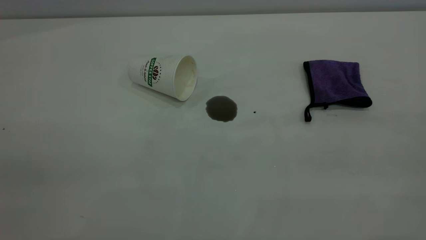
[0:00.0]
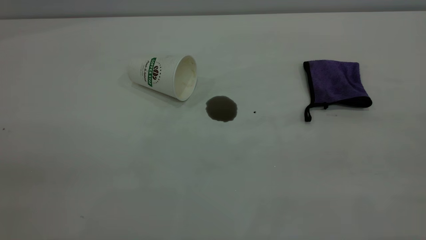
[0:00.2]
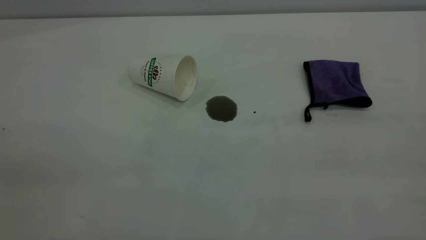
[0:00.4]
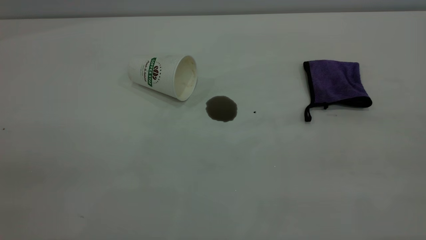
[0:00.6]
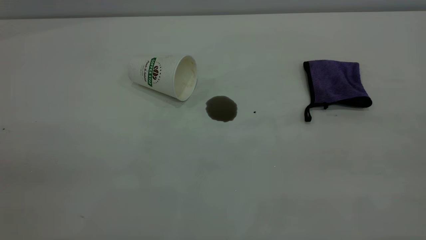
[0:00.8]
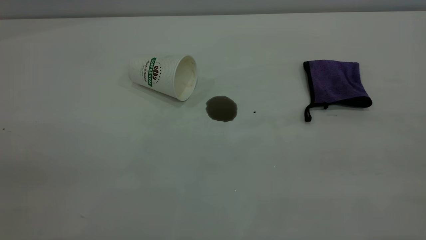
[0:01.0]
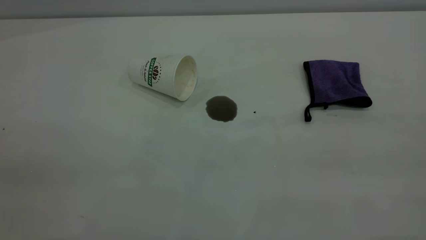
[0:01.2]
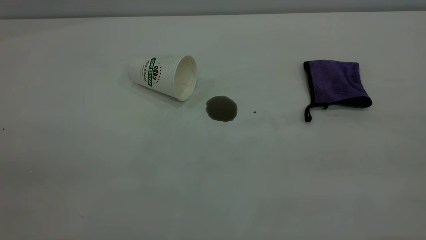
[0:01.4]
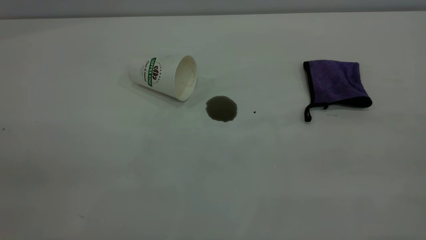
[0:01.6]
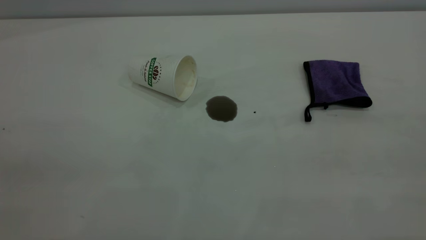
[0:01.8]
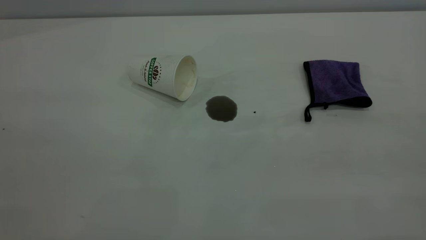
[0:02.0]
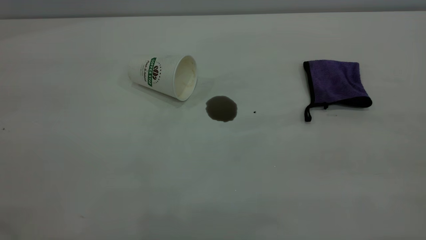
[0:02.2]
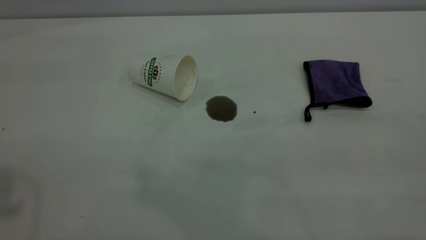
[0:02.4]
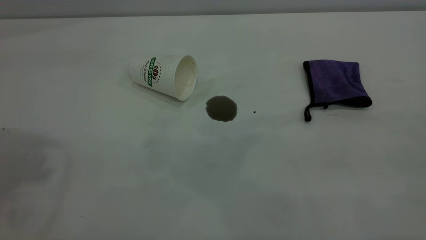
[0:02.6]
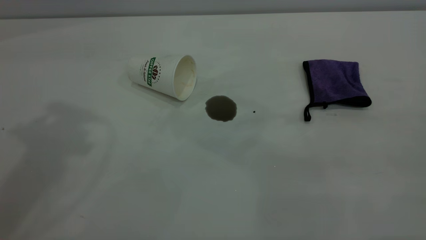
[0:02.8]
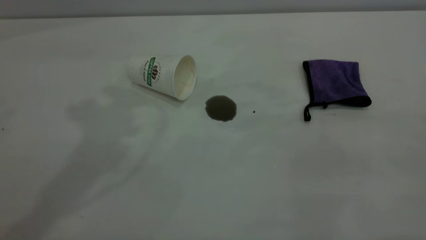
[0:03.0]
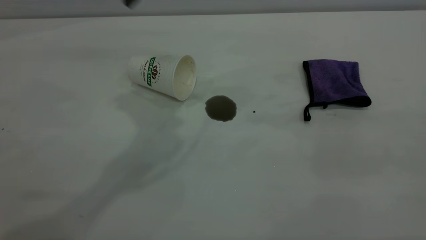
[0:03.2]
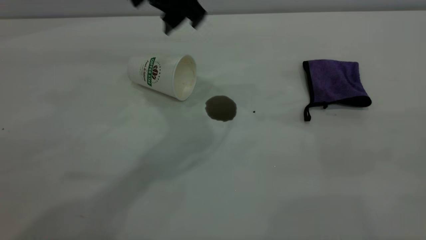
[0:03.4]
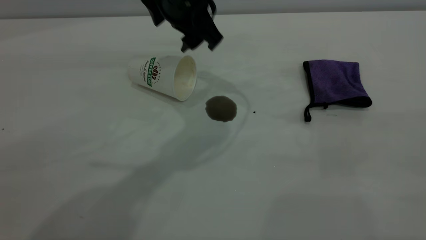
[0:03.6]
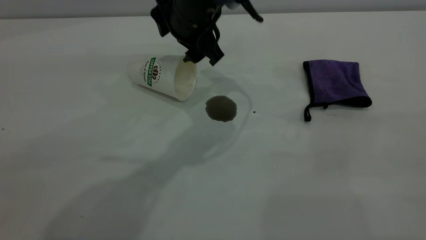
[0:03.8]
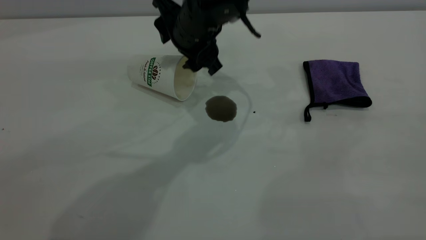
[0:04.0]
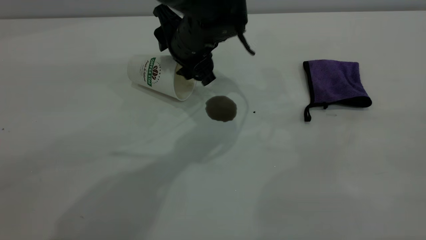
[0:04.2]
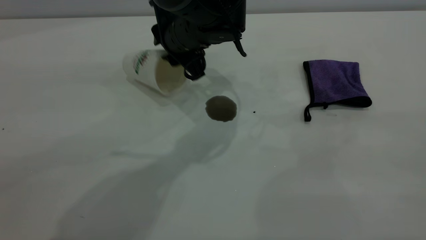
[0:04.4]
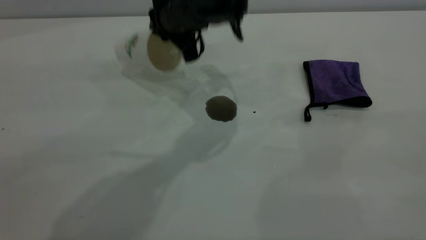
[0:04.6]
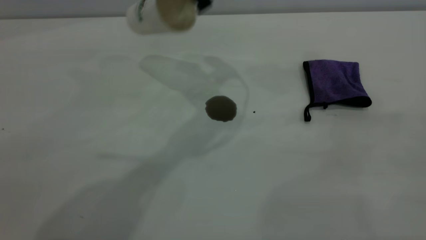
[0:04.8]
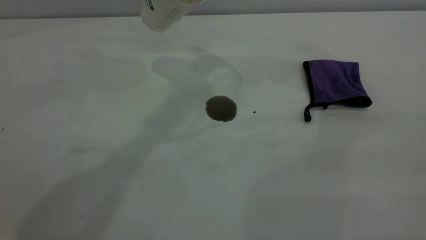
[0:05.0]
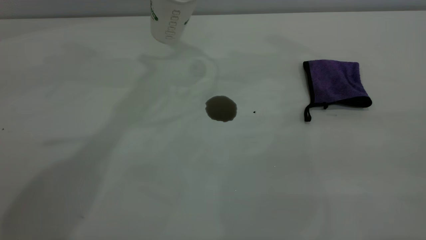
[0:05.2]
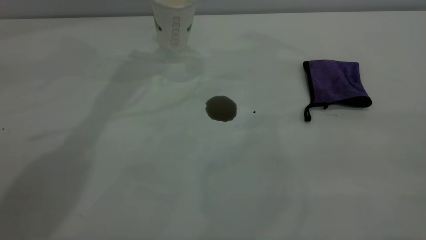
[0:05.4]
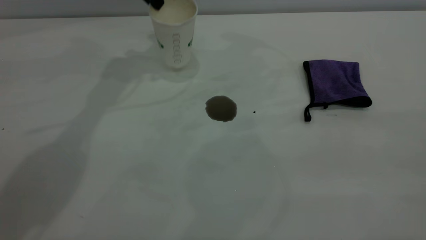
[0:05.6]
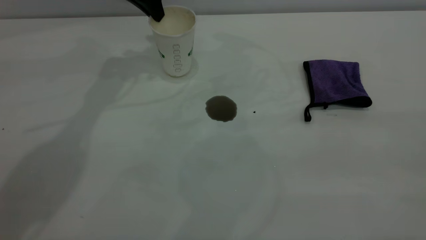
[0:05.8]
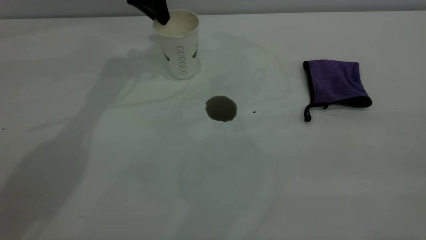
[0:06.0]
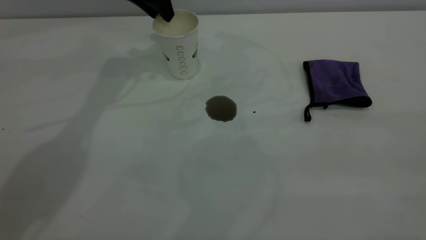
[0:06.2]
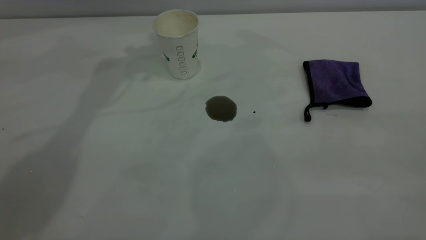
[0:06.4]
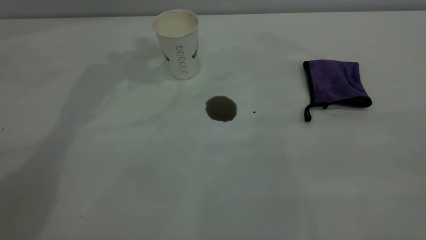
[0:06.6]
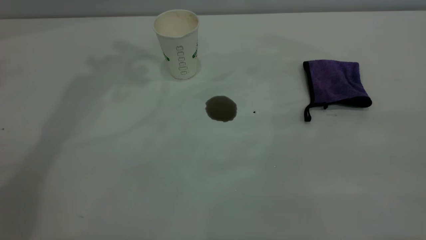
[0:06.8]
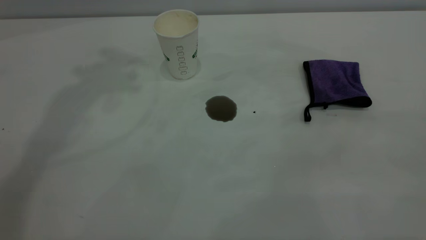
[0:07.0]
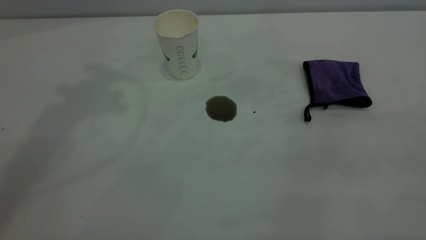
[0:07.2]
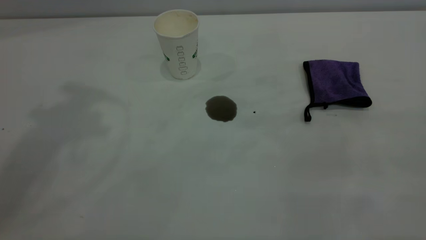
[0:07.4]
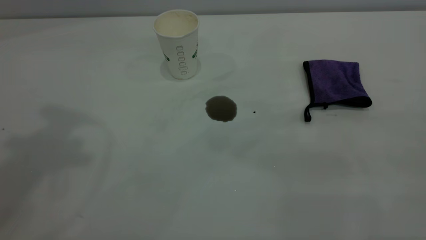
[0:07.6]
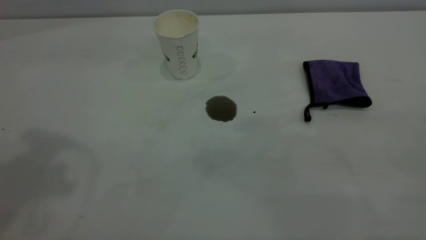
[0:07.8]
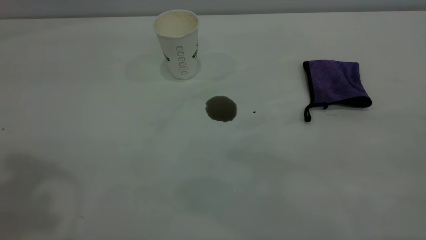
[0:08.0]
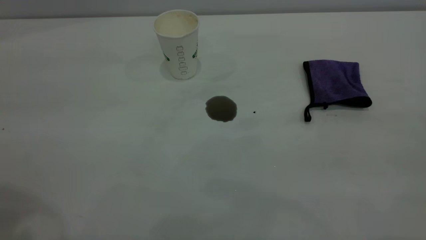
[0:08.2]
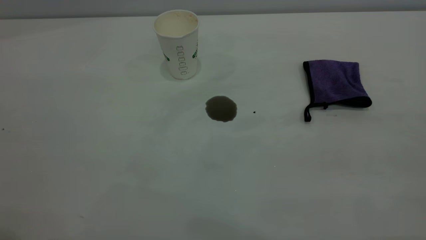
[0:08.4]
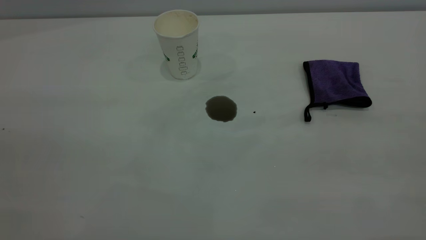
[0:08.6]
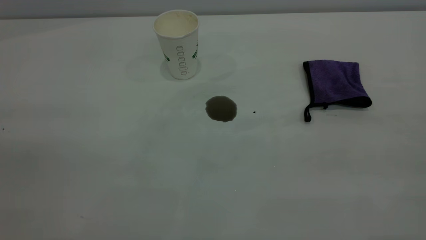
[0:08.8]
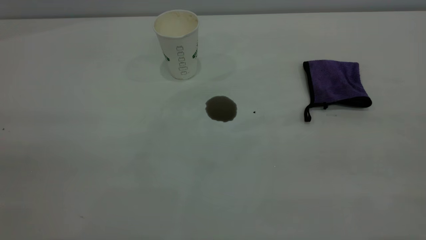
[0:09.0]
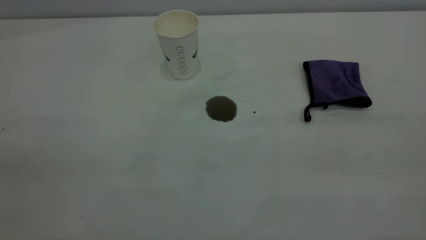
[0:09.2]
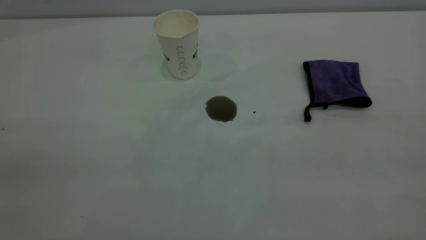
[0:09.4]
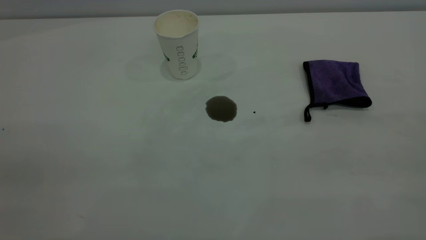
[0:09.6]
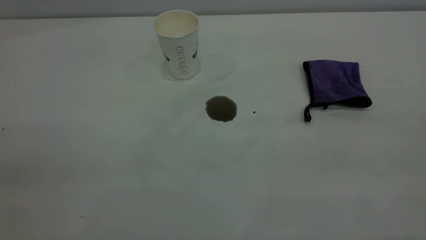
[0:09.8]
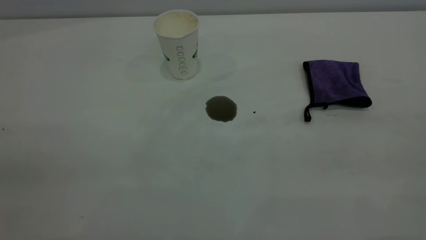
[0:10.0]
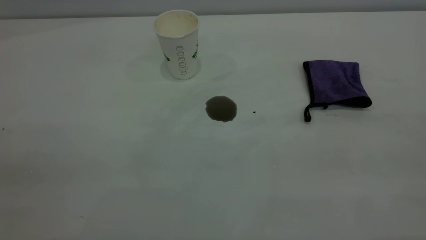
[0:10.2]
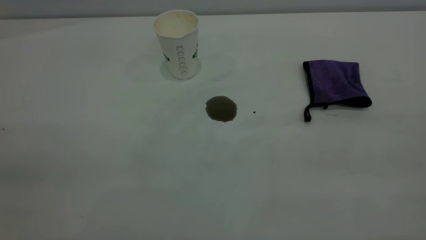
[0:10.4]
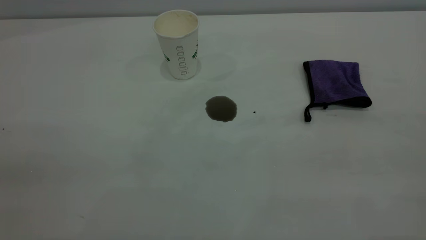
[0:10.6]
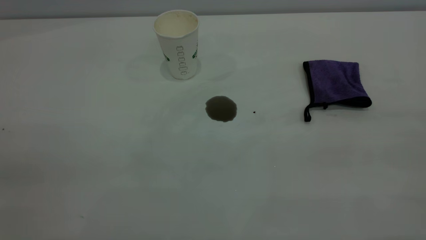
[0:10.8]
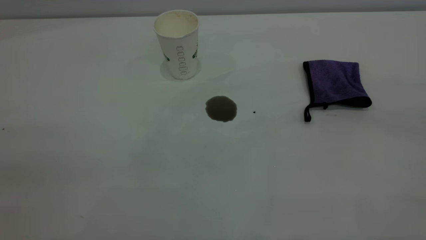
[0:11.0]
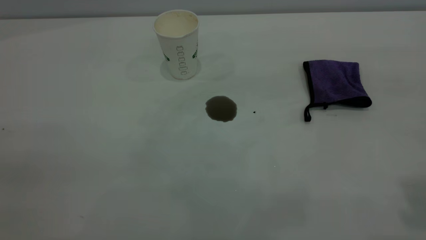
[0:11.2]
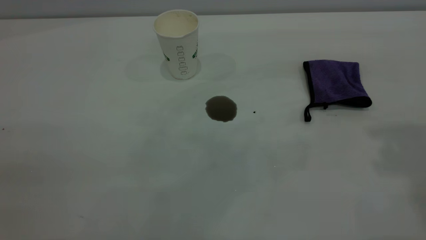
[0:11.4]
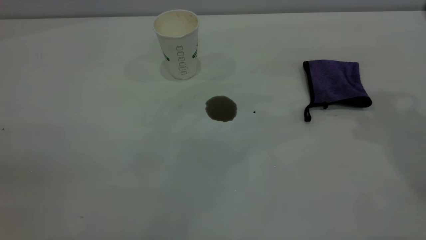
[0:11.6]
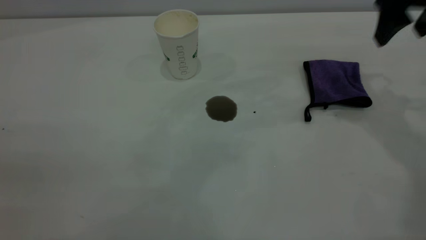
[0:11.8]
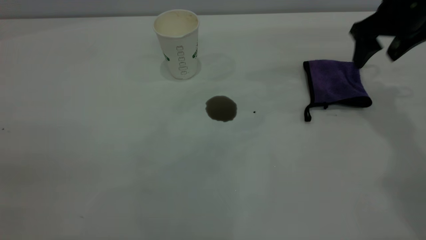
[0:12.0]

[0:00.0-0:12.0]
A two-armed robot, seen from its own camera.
Task of the whole recording: the left gripper pick up the fallen cup and place it upright, the right gripper grasp the purple rag and wipe the coffee stain on the table, the right gripper put the purple rag back in its original position.
Step, 0:00.0 to 0:06.2: Stand the paper cup upright.
0:00.0 to 0:01.6: Both grippers stay put.
0:03.0 to 0:04.4: The left gripper shifts some 25 cm downward and to the right, and closes up.
0:04.4 to 0:06.0: The left gripper heads to the left, forward and upward, covering approximately 20 cm.
0:06.0 to 0:07.6: The left gripper shifts approximately 40 cm upward and backward, and opens up.
0:10.4 to 0:12.0: The right gripper goes roughly 50 cm forward and downward, and opens up.

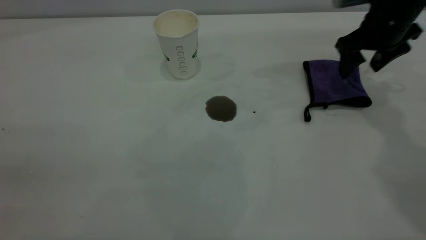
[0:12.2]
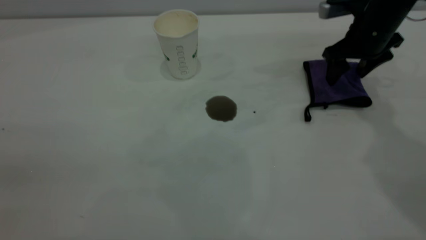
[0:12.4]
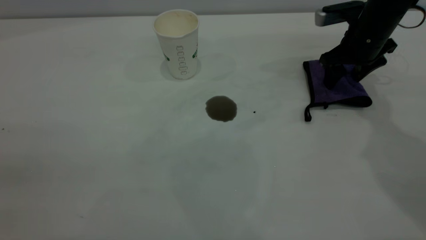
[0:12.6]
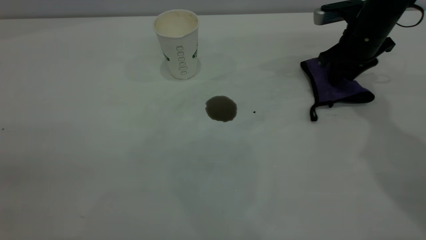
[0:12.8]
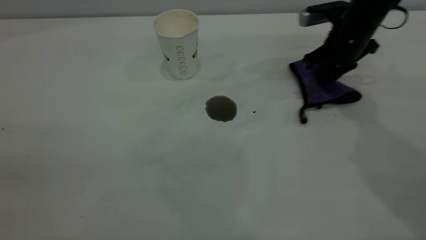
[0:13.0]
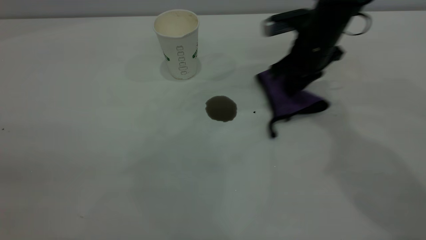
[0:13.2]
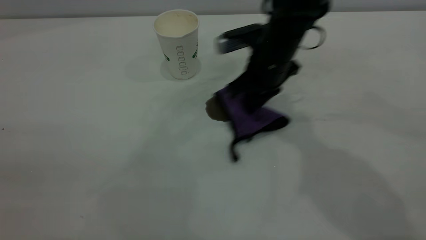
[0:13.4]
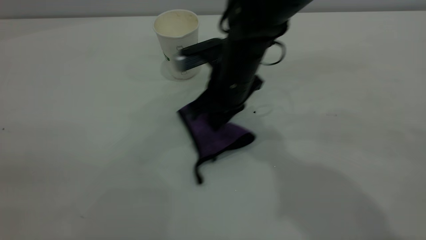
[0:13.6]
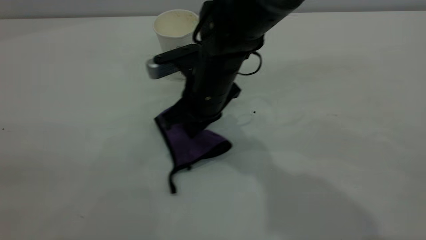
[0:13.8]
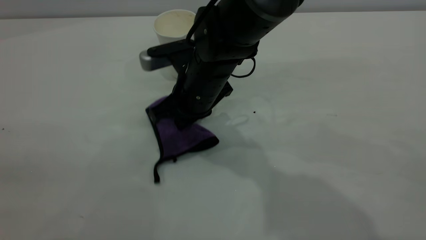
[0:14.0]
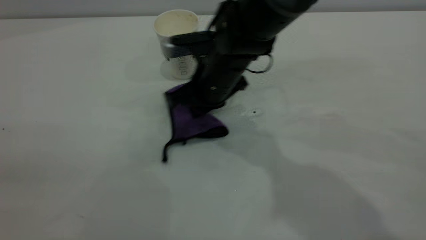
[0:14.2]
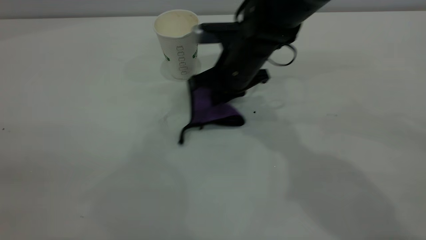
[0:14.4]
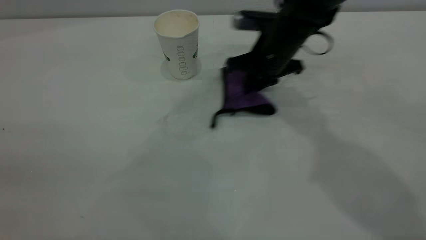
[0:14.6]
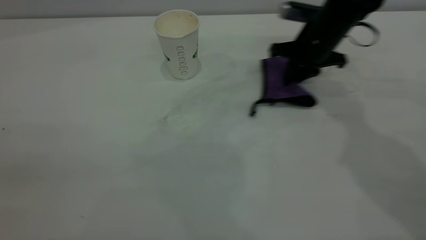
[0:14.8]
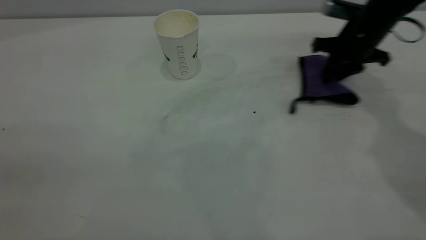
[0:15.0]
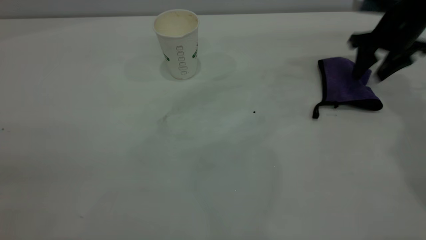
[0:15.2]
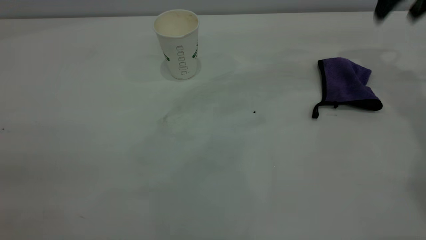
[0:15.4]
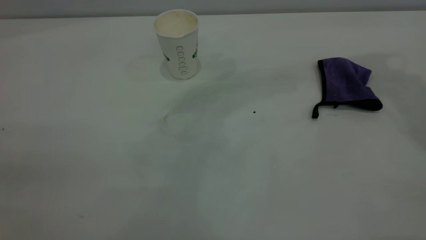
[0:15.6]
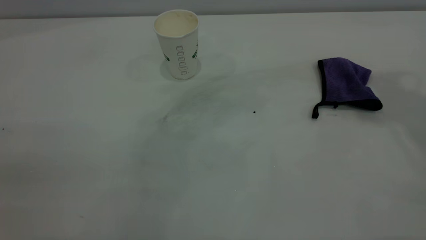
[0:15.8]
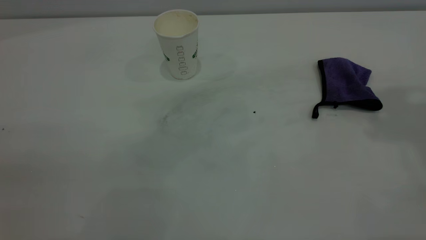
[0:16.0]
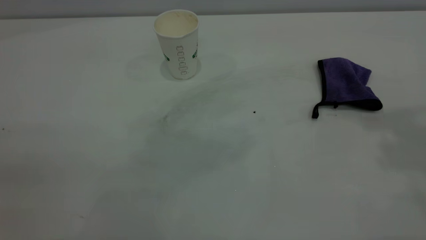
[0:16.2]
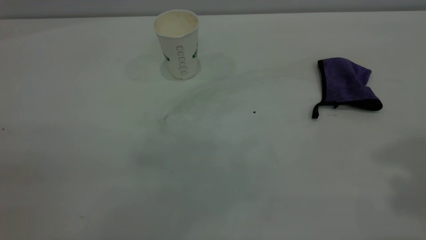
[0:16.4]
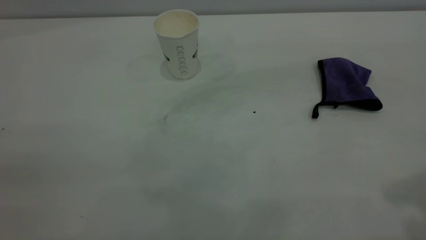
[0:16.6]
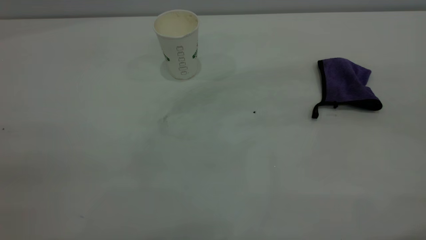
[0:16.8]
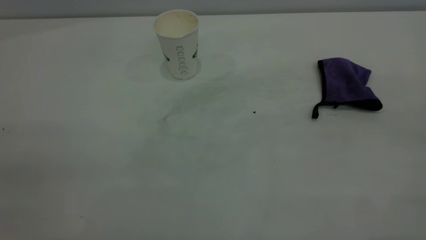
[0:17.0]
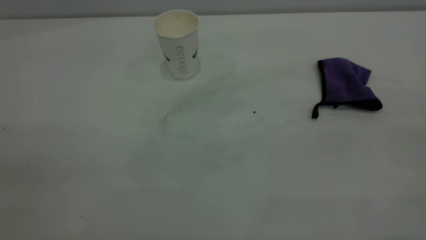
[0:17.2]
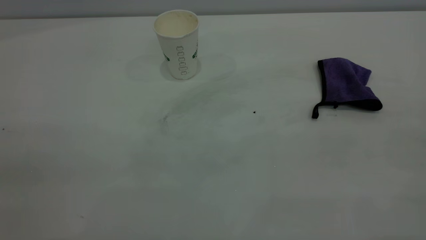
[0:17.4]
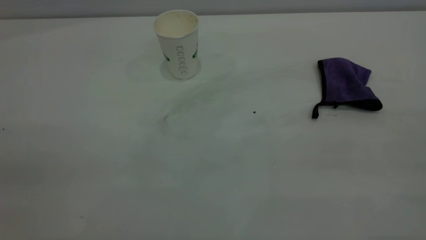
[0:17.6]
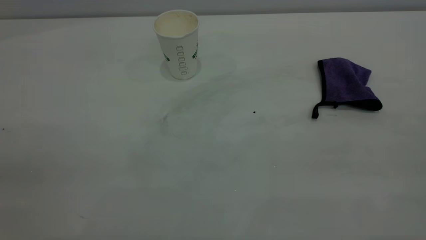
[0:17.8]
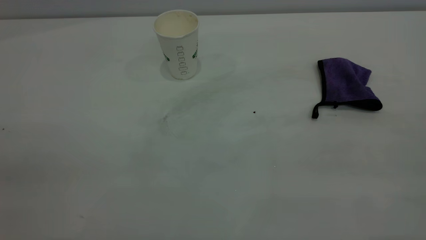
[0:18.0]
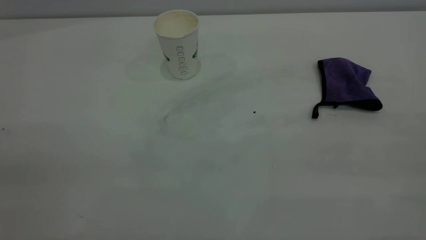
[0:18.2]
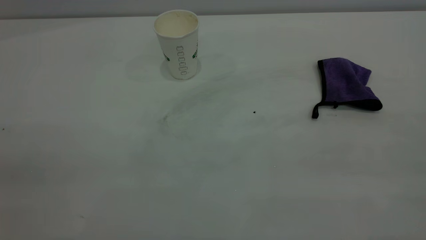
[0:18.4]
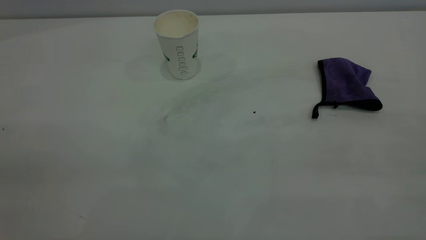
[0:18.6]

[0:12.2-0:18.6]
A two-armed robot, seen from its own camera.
Task of the whole recording: the left gripper pick up the fallen cup and place it upright, the right gripper grasp the purple rag and wipe the coffee stain on the table, the right gripper put the purple rag back in its original position.
Step, 0:12.2 to 0:15.2: Wipe the stains off the table with a rag.
0:12.2 to 0:13.8: The right gripper moves to the left, approximately 30 cm, and closes up.
0:13.8 to 0:15.4: The right gripper shifts about 40 cm to the right and upward, and opens its fingers.
0:15.4 to 0:17.0: The right gripper is displaced backward by roughly 40 cm.
